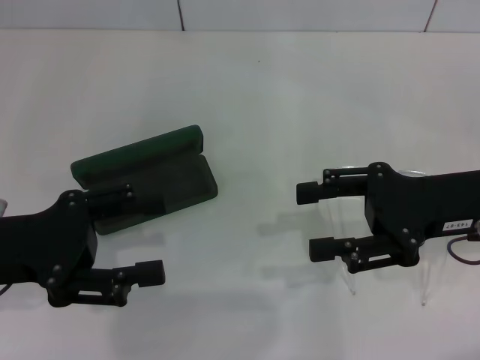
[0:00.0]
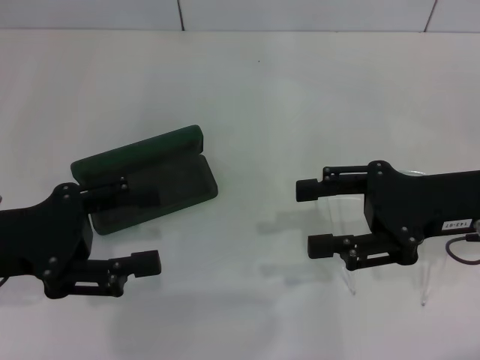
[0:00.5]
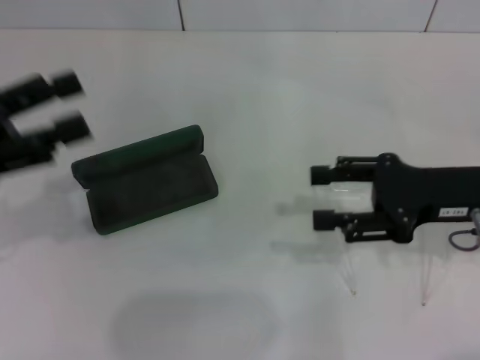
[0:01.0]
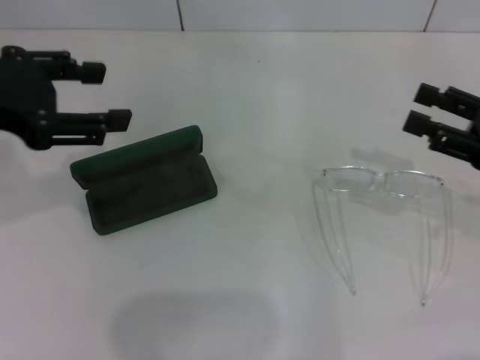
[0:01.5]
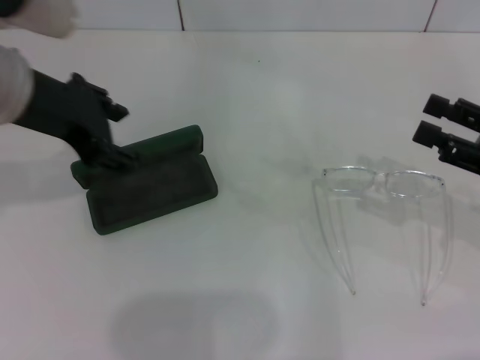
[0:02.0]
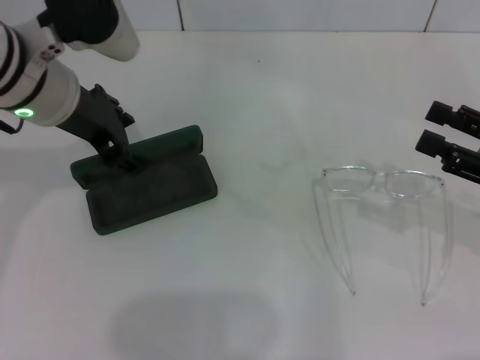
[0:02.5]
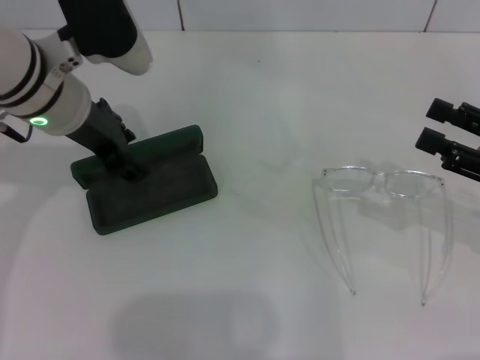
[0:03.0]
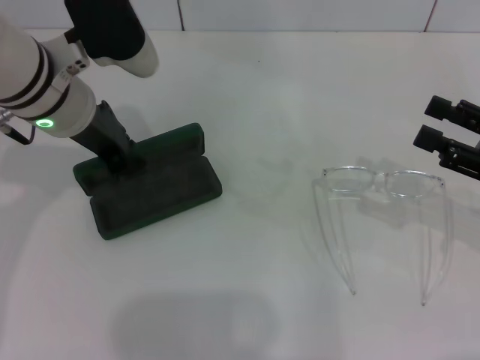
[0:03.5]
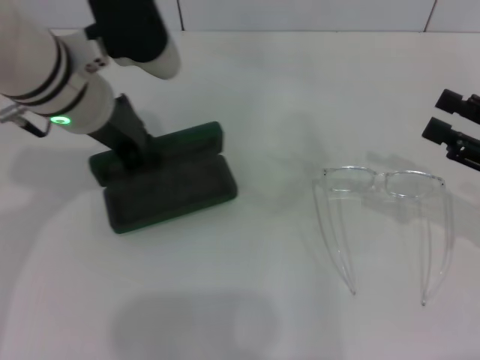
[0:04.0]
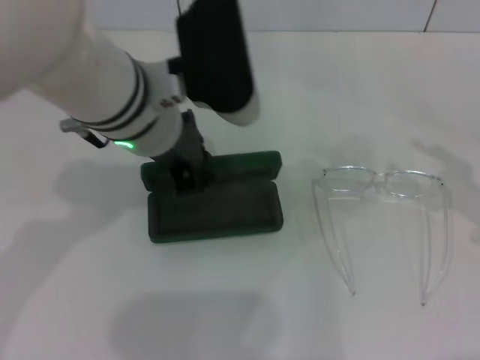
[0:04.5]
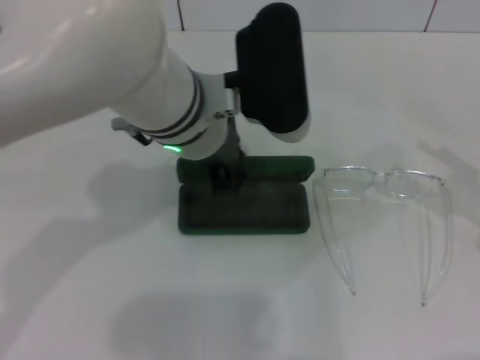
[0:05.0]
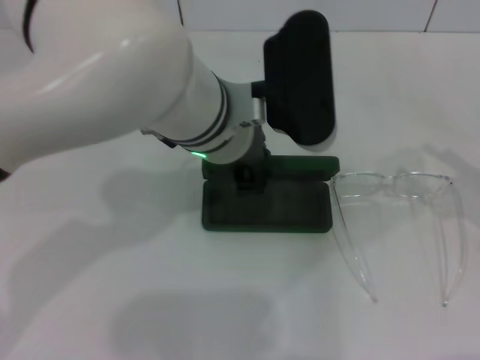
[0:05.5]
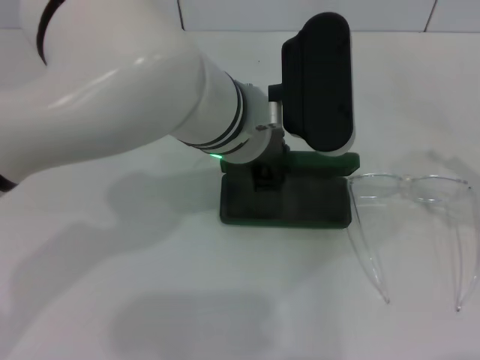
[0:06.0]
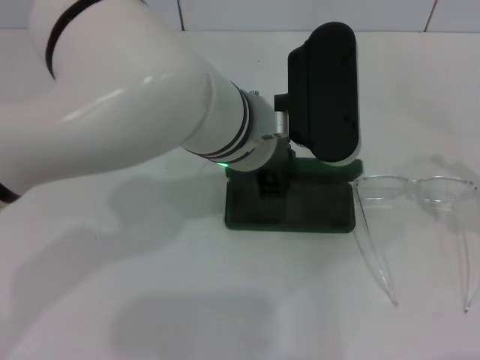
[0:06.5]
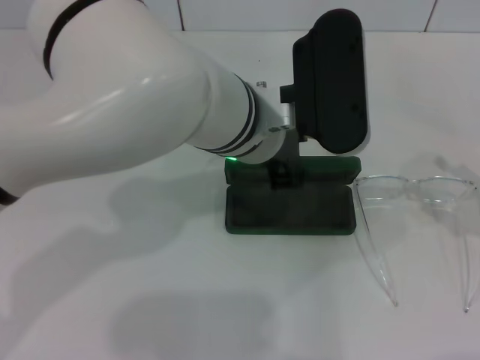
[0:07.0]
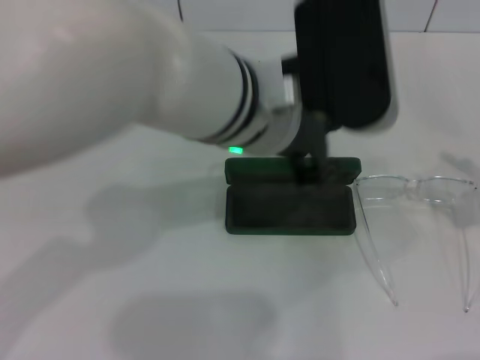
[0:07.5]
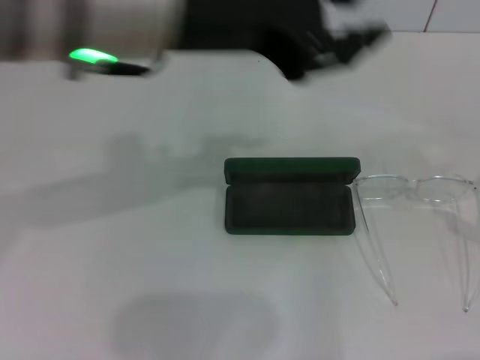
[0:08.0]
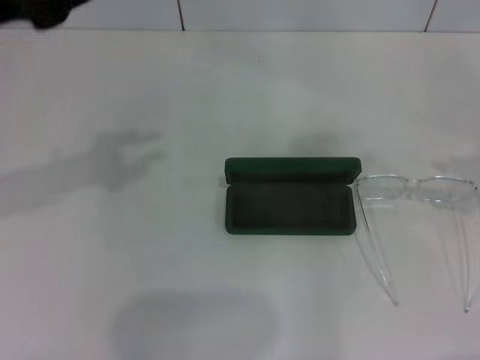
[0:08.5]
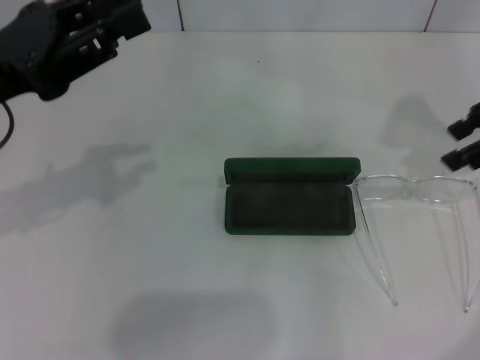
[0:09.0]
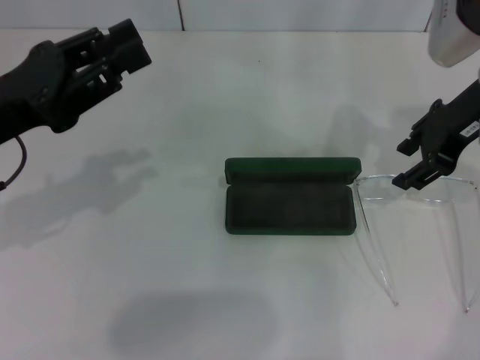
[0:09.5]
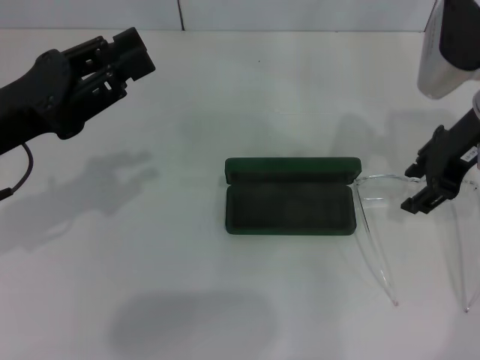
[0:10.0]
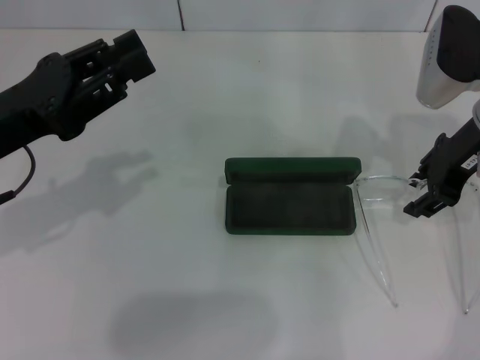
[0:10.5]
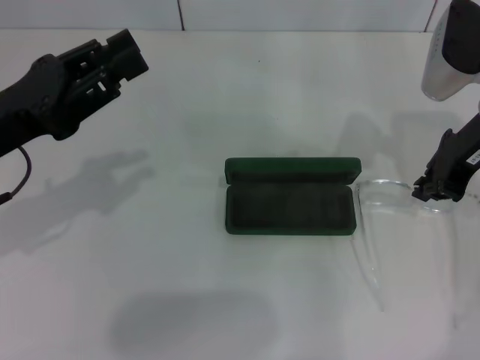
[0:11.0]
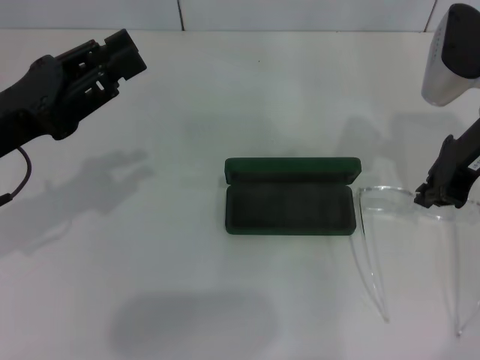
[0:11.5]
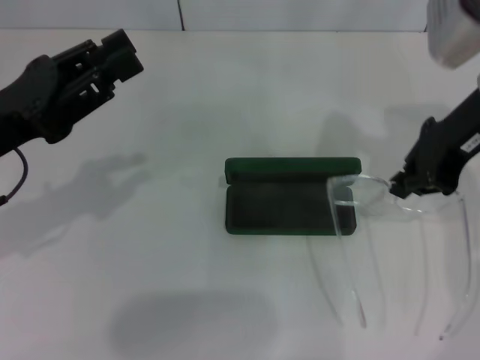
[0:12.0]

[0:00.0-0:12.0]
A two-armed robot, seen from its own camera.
Step, 0:00.0 to 0:03.0: Grab the glasses case with your left hand.
Step, 0:04.0 to 0:06.5: Place the glasses case in the center of the table with your left hand.
Step, 0:07.0 to 0:11.0: Grab the eyeglass frame with your right hand.
0:00.0 to 0:02.0: The left gripper shifts about 15 cm upward, forward and to the right. Meanwhile the right gripper travels to the right by roughly 10 cm.
0:02.0 to 0:04.0: The left gripper is displaced to the right by approximately 5 cm, and closes.
0:04.0 to 0:06.0: The right gripper shifts by some 5 cm. Meanwhile the left gripper shifts some 15 cm to the right.
0:06.0 to 0:08.0: The left gripper shifts roughly 15 cm upward and to the left.
0:08.0 to 0:10.0: The left gripper heads downward and to the left, covering approximately 20 cm, while the right gripper moves to the left and forward, approximately 25 cm.
0:10.0 to 0:12.0: The right gripper closes.

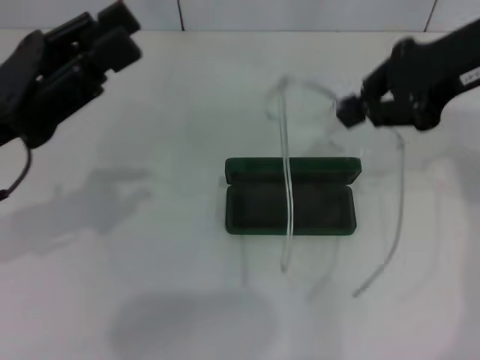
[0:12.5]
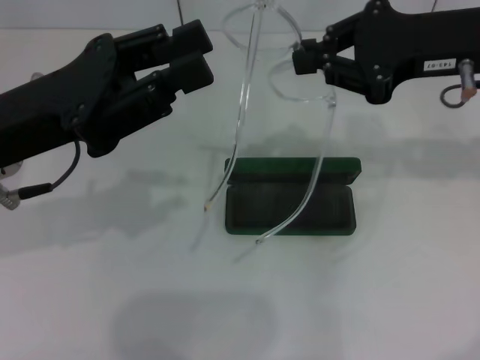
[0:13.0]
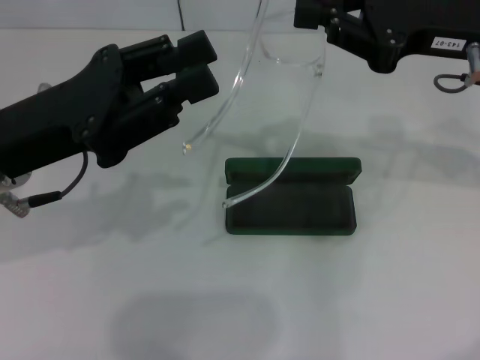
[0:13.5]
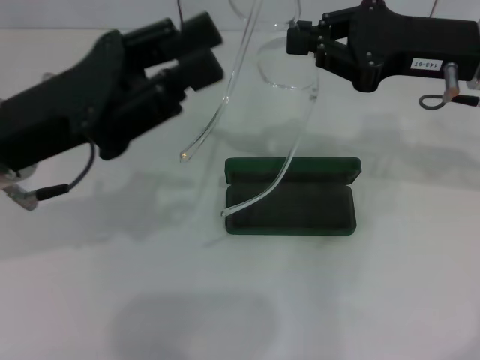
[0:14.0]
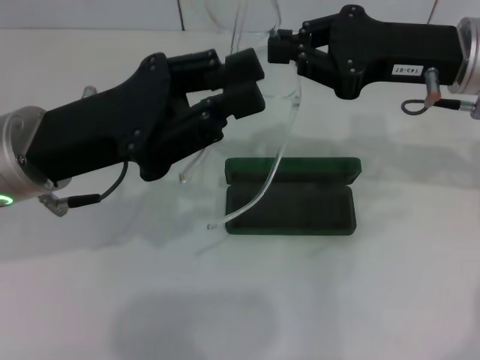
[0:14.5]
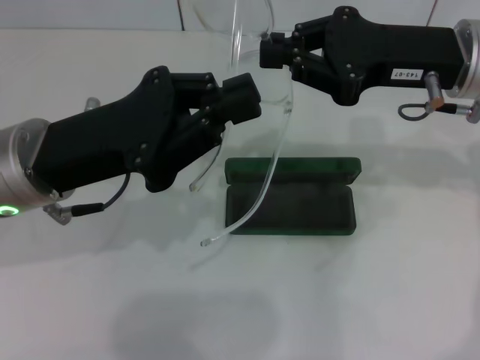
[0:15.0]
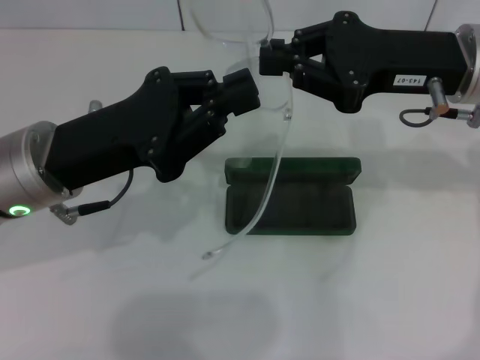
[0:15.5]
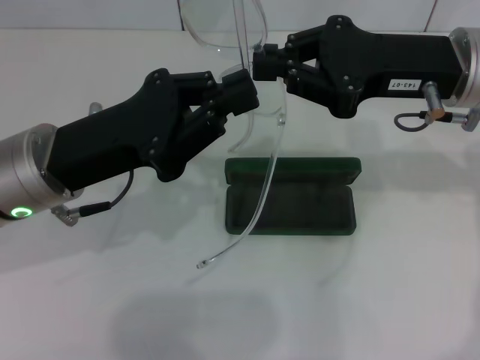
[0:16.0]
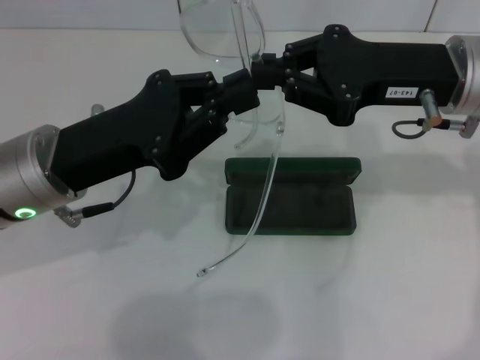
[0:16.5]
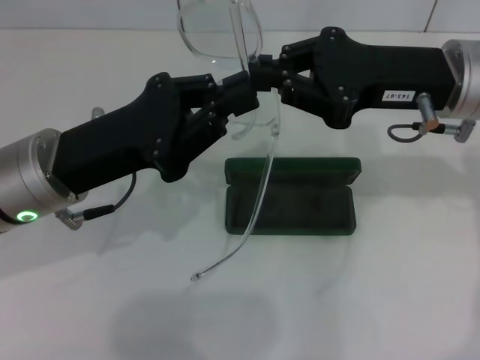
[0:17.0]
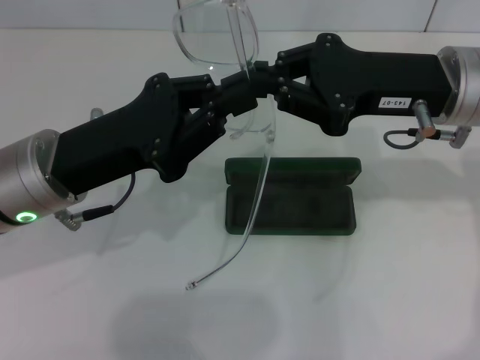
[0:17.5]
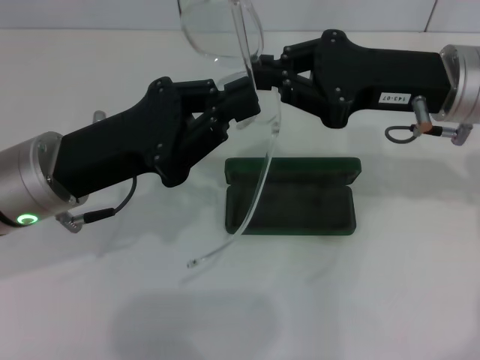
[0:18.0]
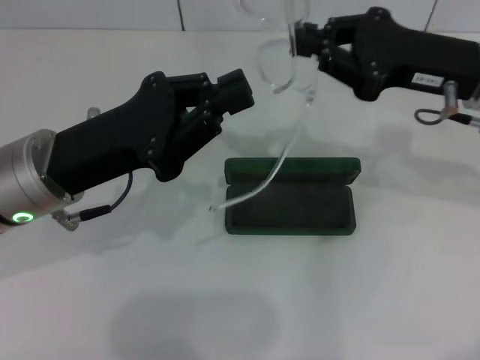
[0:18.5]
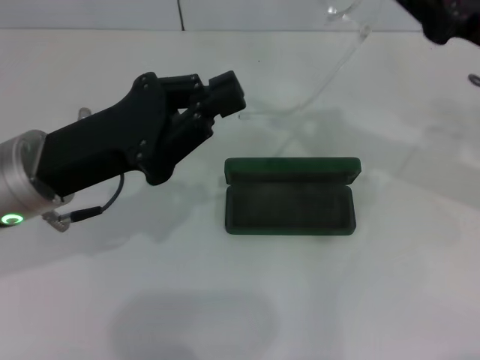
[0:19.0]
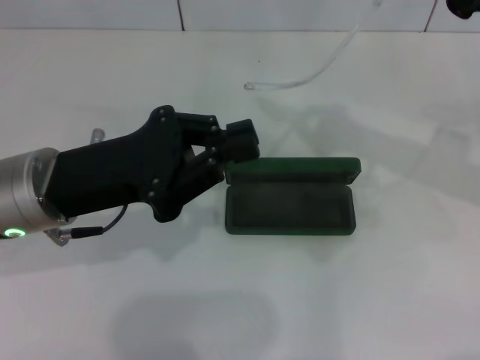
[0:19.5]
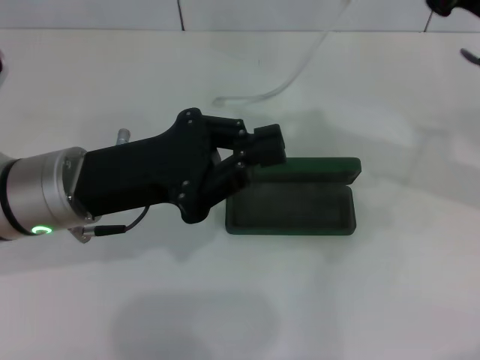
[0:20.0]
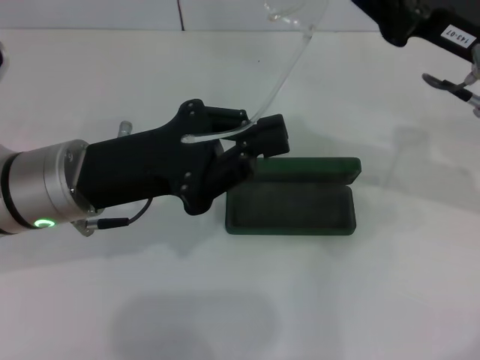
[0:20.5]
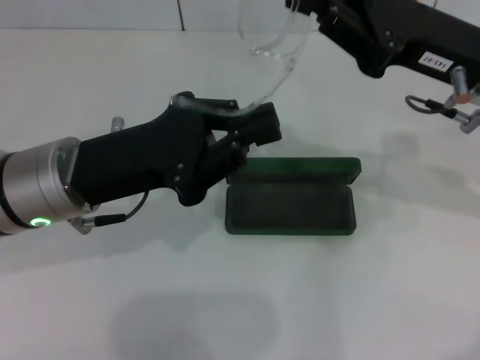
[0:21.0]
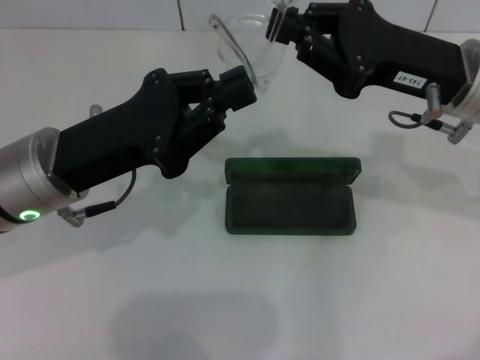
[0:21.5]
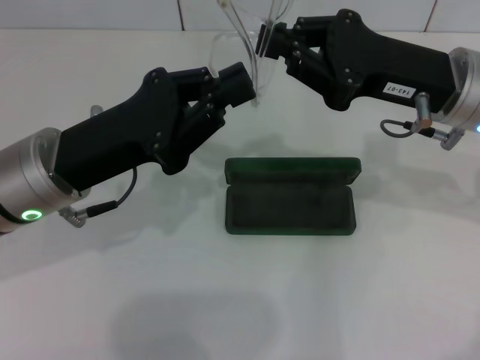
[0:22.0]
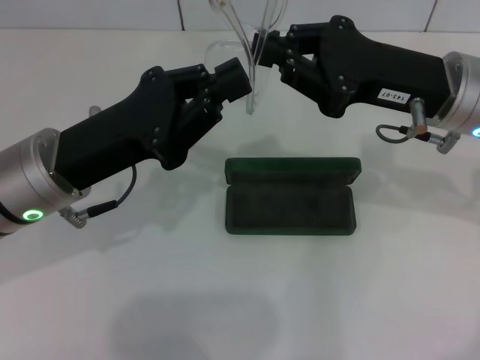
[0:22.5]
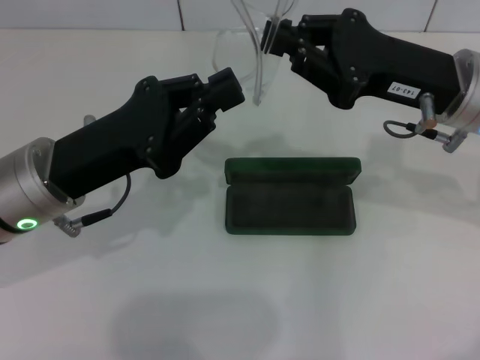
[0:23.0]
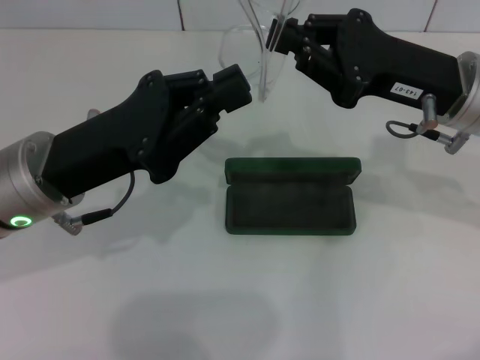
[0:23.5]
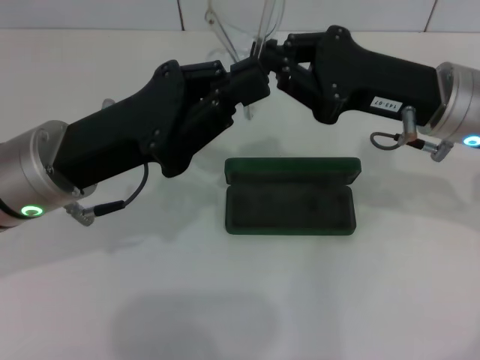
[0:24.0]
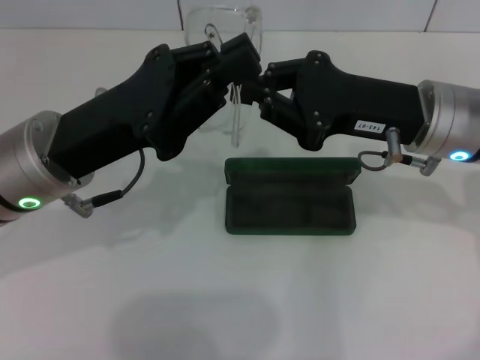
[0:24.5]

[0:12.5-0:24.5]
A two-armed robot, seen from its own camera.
0:12.5 to 0:14.5: The right gripper travels downward by roughly 10 cm. The left gripper moves to the right, approximately 5 cm.
0:14.5 to 0:18.5: The grippers stay close to where they were, moving slightly.

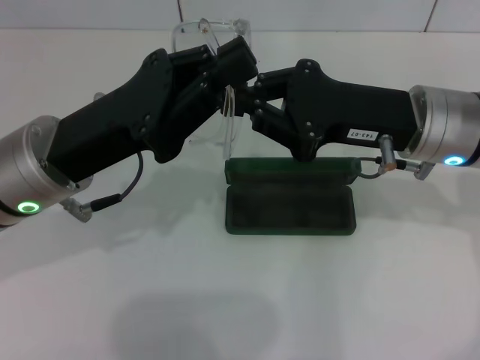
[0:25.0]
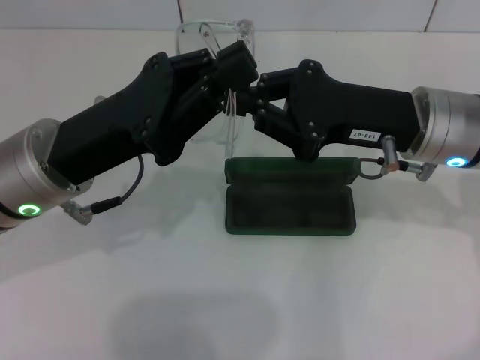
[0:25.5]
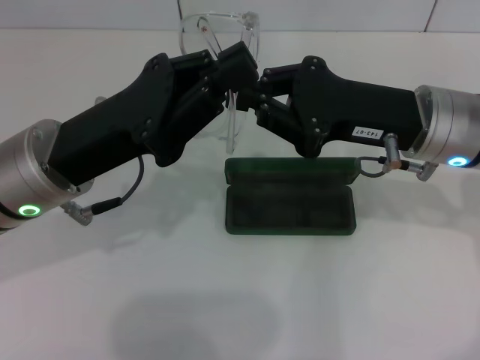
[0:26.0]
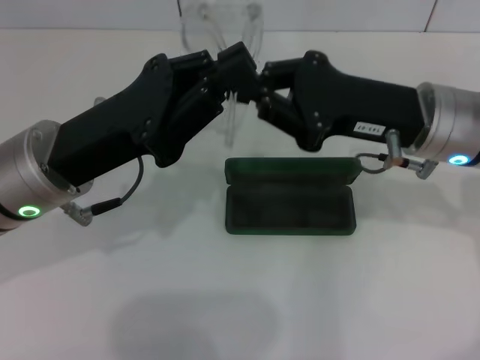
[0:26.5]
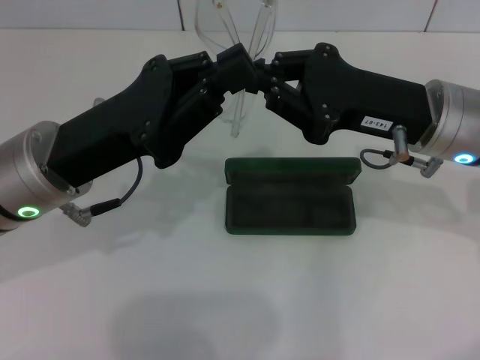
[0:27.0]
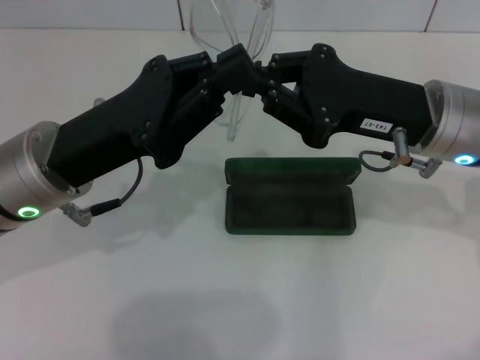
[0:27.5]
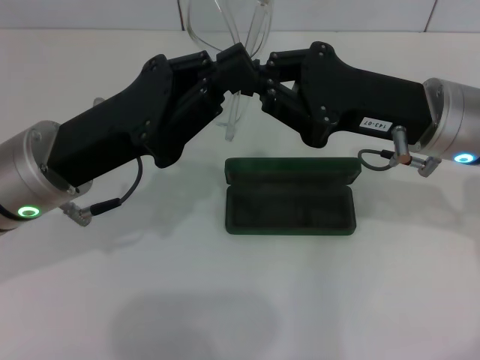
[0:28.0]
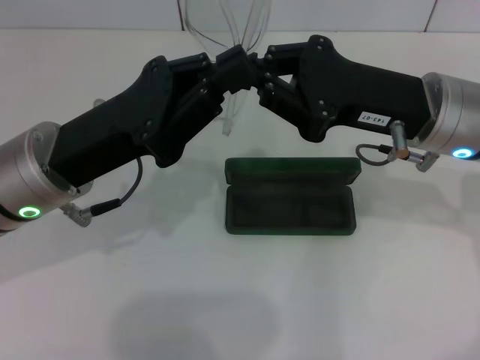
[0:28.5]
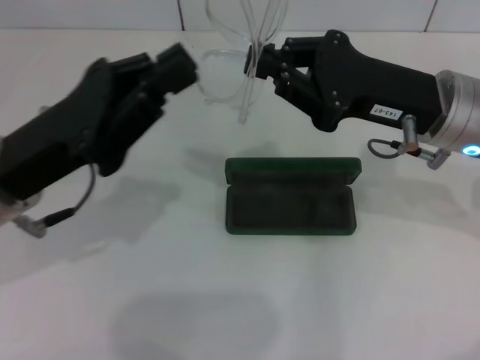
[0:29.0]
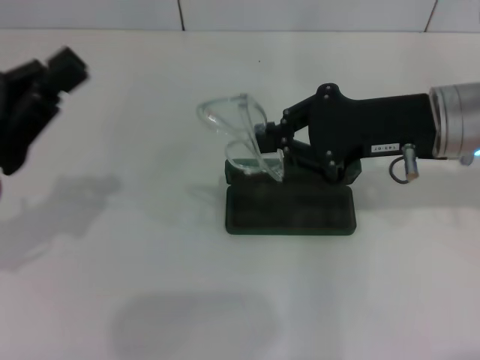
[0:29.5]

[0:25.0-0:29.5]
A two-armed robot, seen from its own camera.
0:25.0 to 0:27.0: The grippers make only small movements.
0:27.0 to 0:29.5: The left gripper heads to the left, covering about 10 cm.
